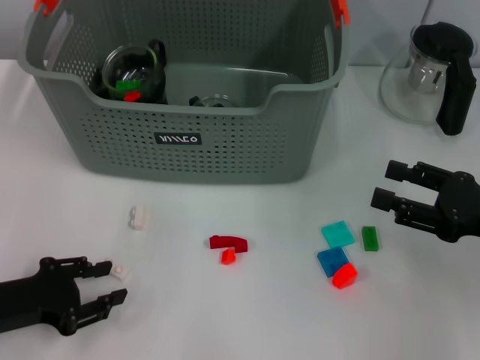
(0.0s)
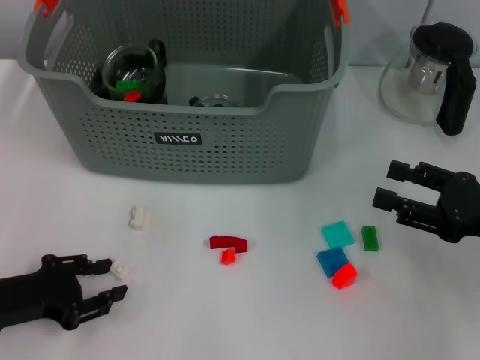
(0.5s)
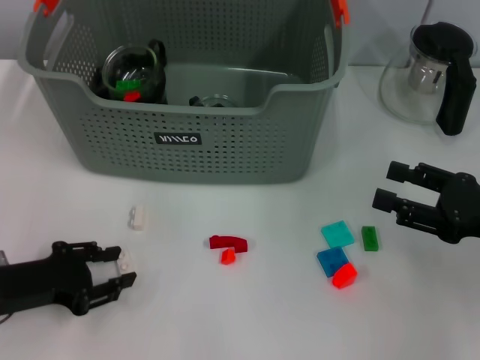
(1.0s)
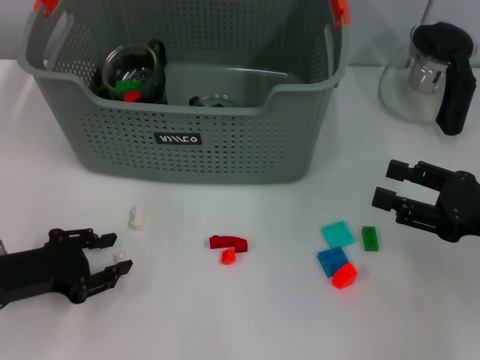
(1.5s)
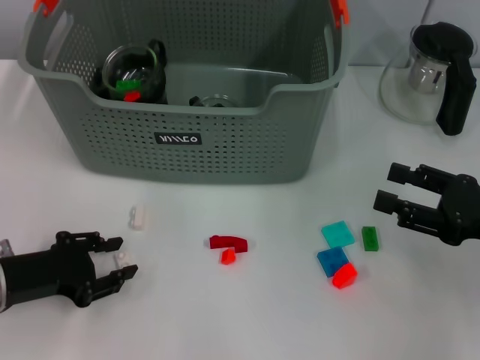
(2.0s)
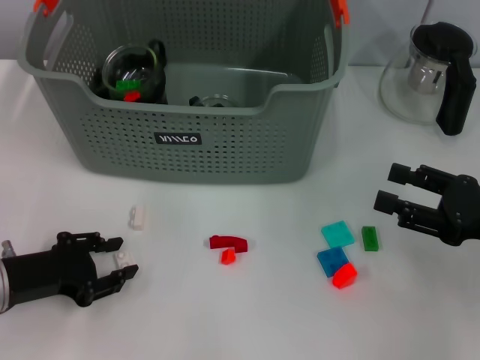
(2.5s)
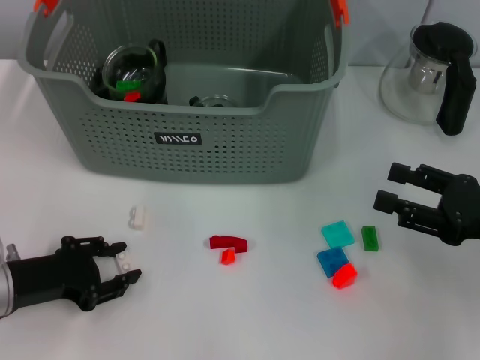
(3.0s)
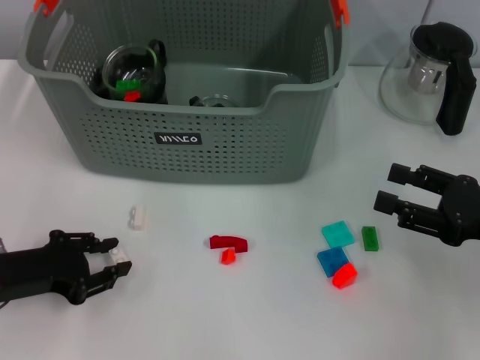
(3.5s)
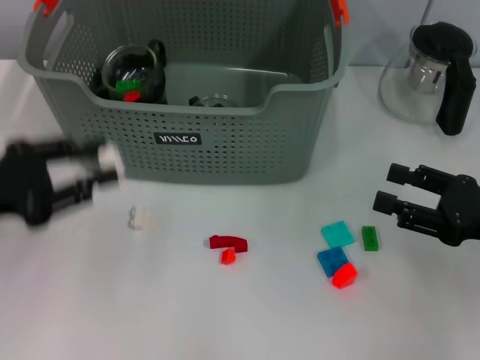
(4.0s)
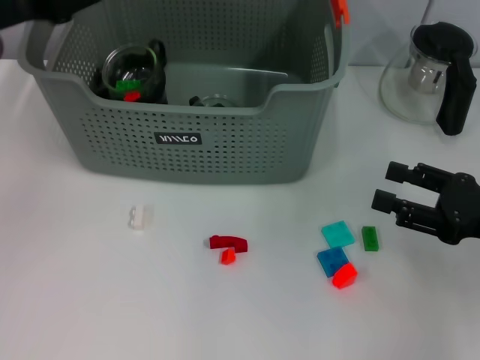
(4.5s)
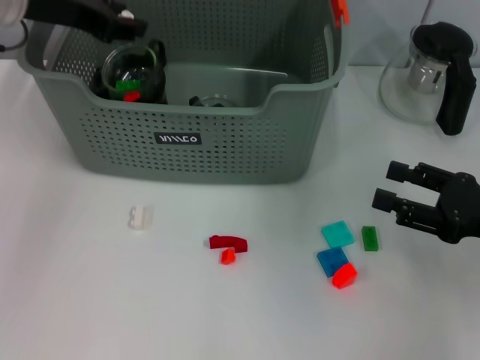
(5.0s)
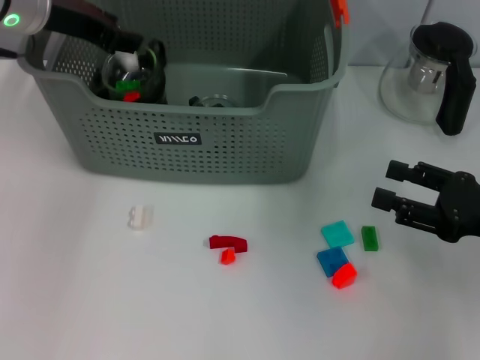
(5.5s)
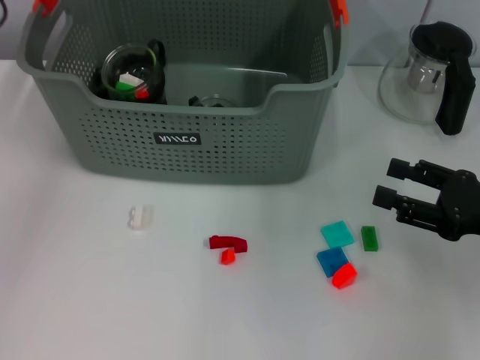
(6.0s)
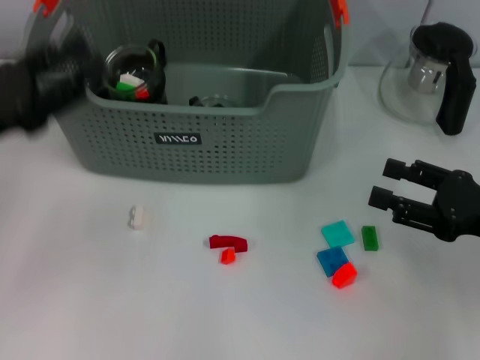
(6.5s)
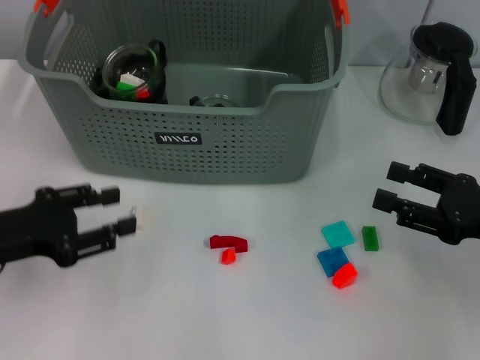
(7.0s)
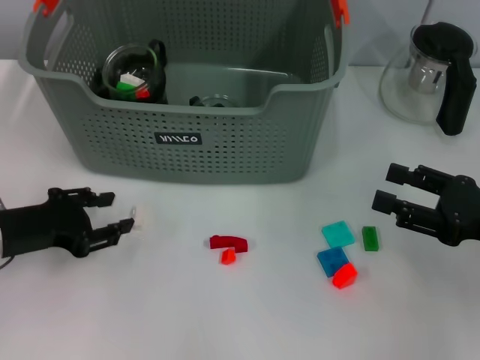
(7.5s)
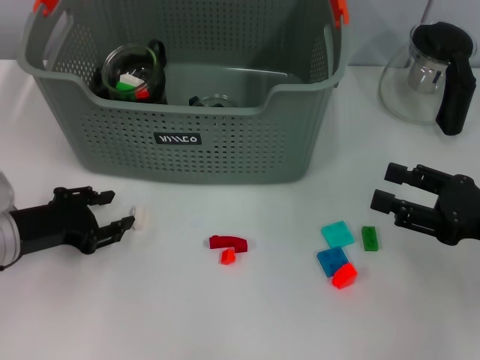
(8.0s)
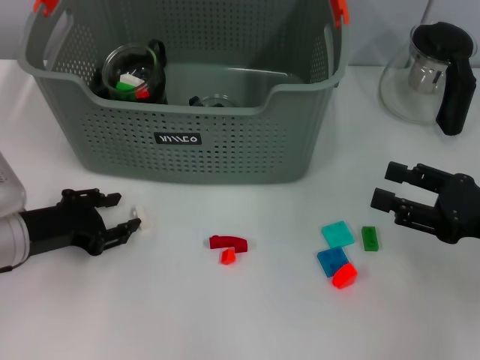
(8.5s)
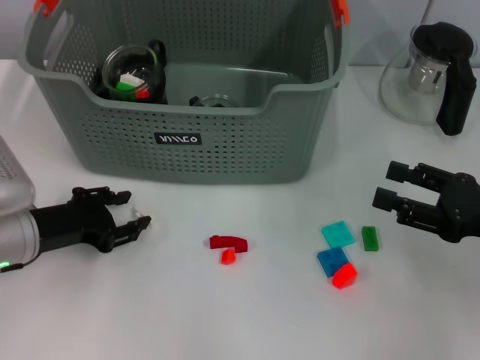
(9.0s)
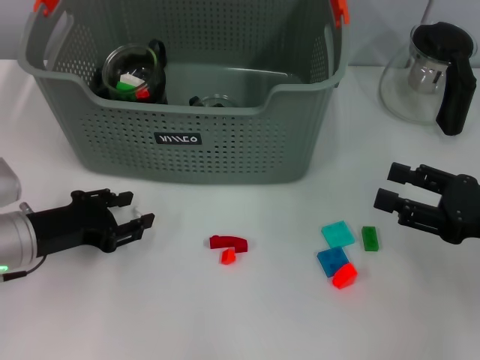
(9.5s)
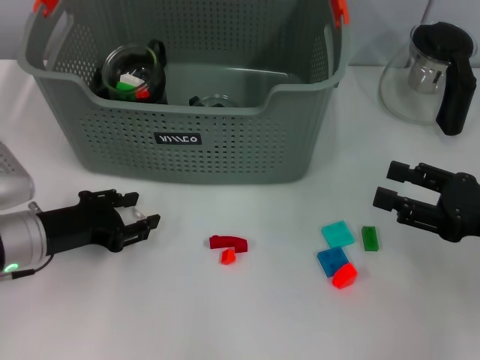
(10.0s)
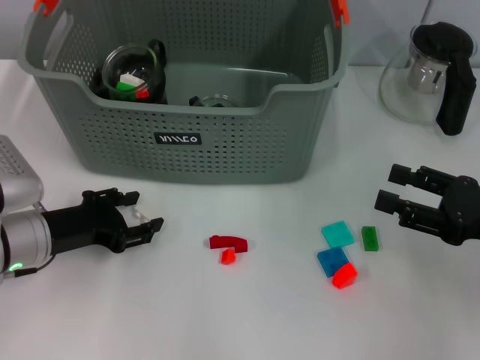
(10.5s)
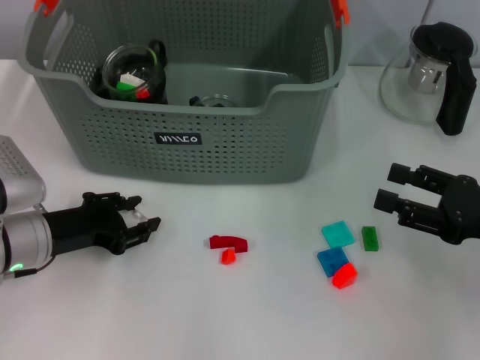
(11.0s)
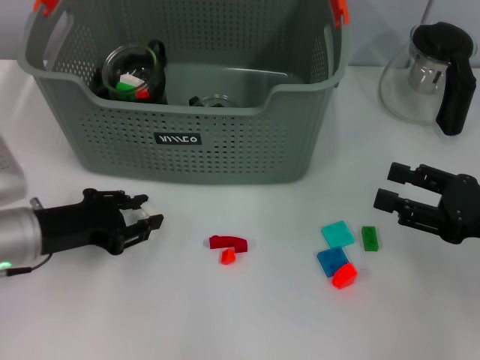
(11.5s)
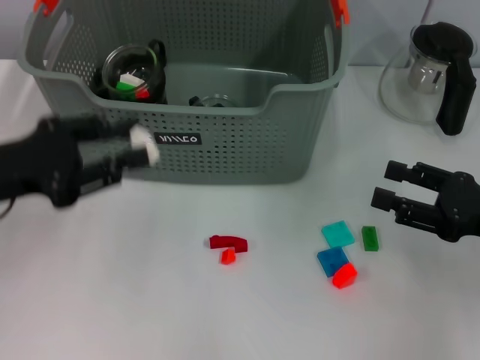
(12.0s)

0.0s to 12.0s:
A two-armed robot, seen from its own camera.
Task of the whole recording: pick up the teacup on the table and place it into the storage bin, pick up the block on the table and place it into the storage bin.
Step, 0.0s to 3.0s: Grasp the white block with left gripper.
Step, 3.5s to 5.5s: Place the white block in the storage box with left gripper.
Step, 6.0s to 11.0s: Grasp the white block with left gripper.
0.0s to 2.0s: There are only small adjustments of the grippers.
2.0s to 4.0s: The left gripper moves upward, some 10 cm.
4.0s to 6.0s: The left gripper shifts roughly 20 cm upward, forward and to the right.
6.0s to 8.0s: The left gripper is displaced downward and backward by about 25 cm.
8.0s to 10.0s: The grippers move only a little.
10.0s to 12.0s: The left gripper moves upward, some 10 cm.

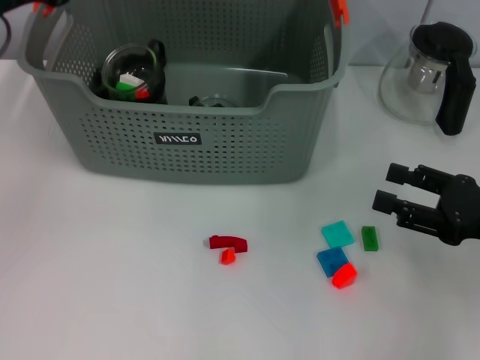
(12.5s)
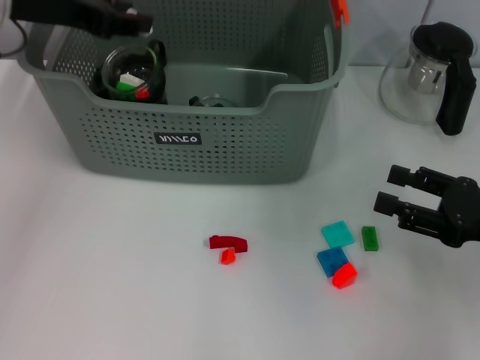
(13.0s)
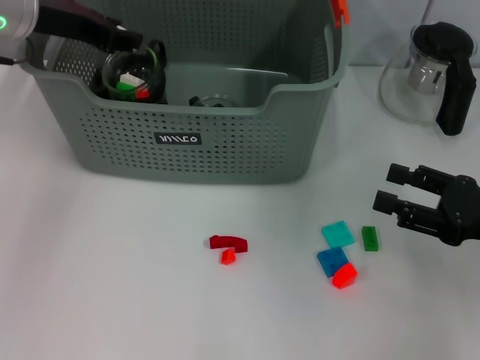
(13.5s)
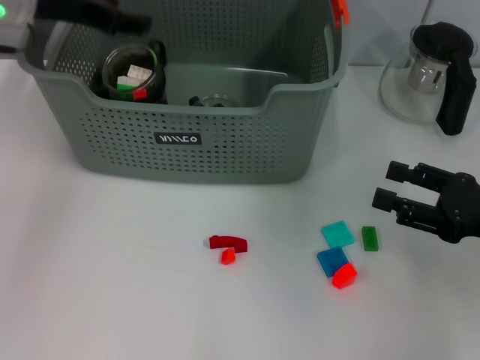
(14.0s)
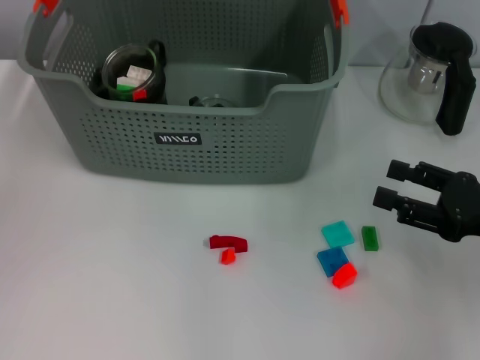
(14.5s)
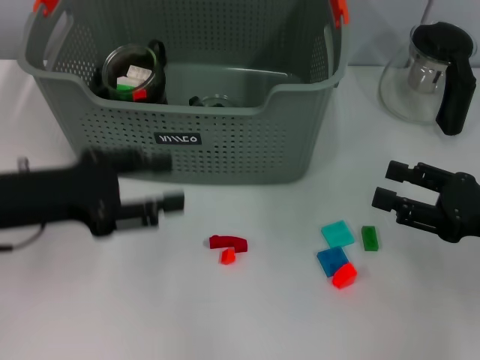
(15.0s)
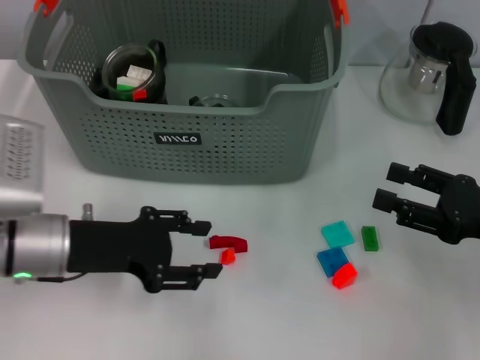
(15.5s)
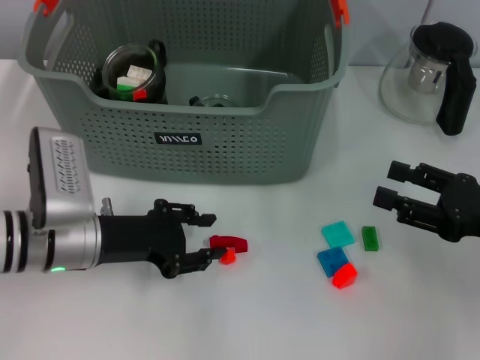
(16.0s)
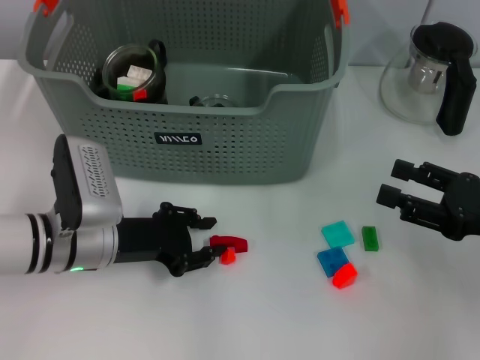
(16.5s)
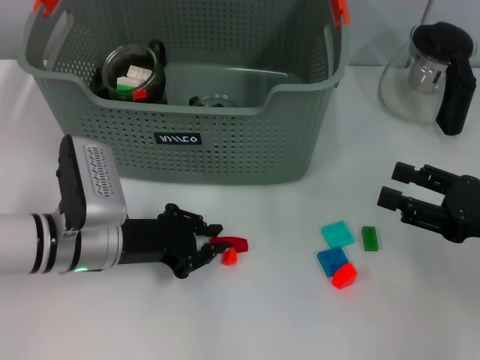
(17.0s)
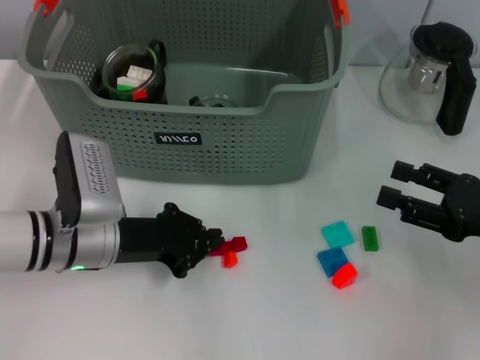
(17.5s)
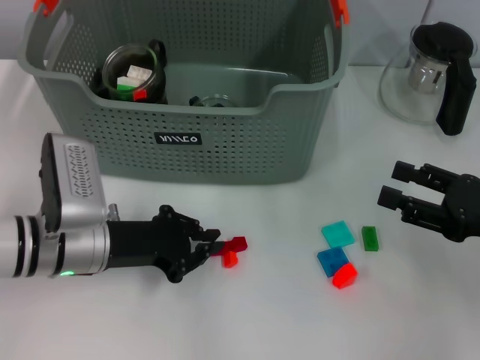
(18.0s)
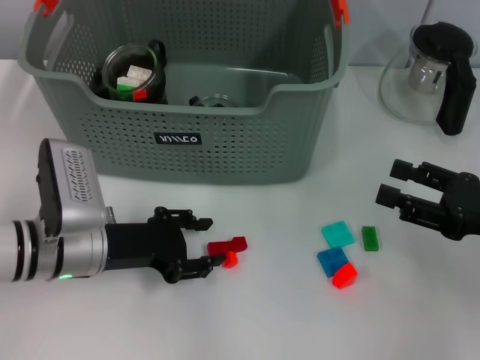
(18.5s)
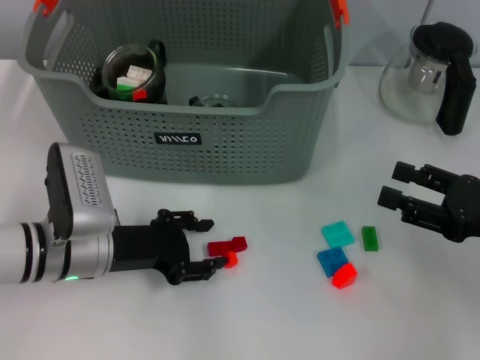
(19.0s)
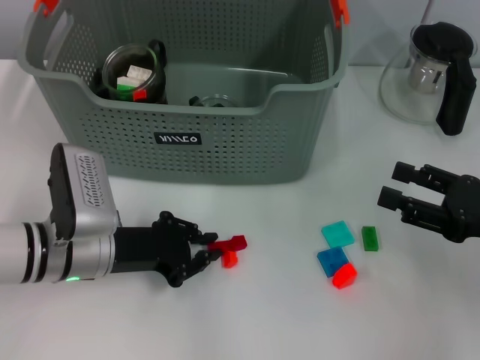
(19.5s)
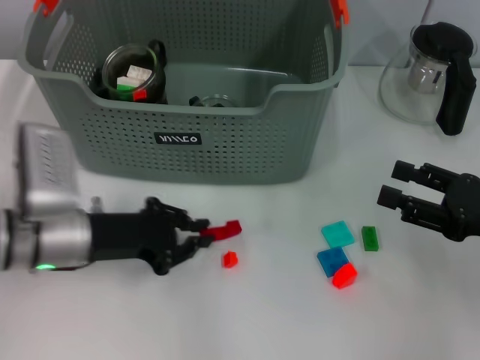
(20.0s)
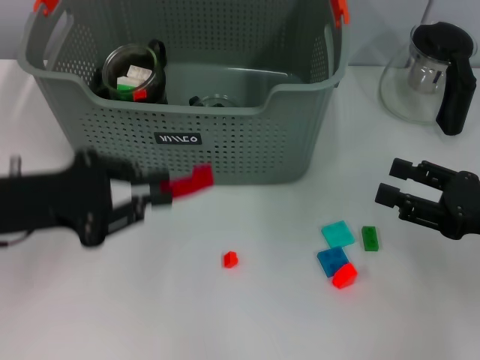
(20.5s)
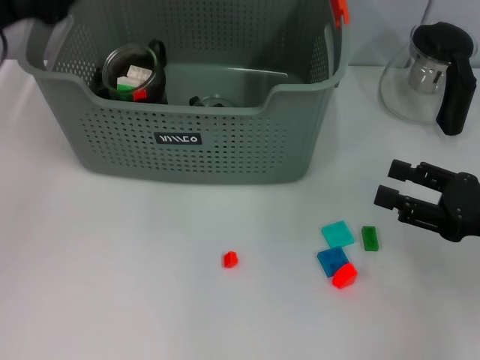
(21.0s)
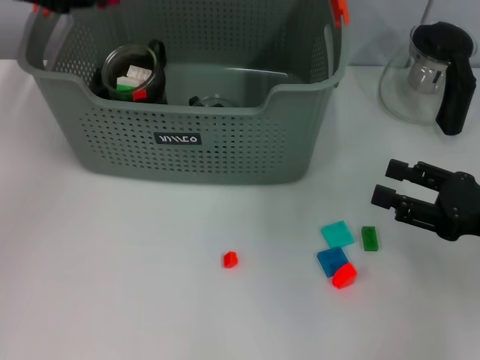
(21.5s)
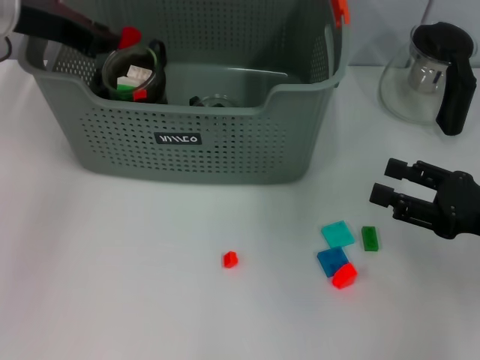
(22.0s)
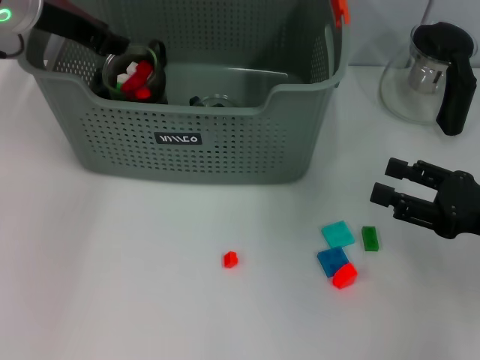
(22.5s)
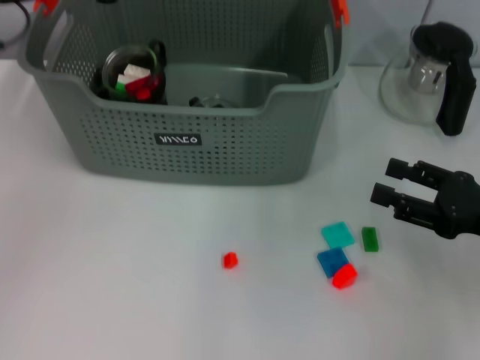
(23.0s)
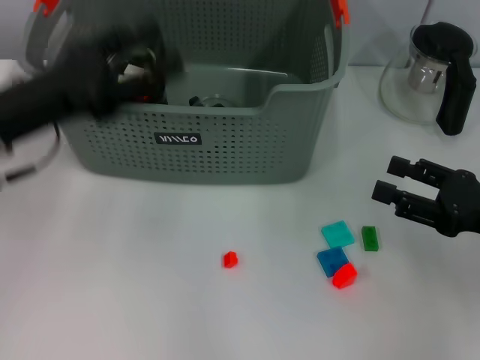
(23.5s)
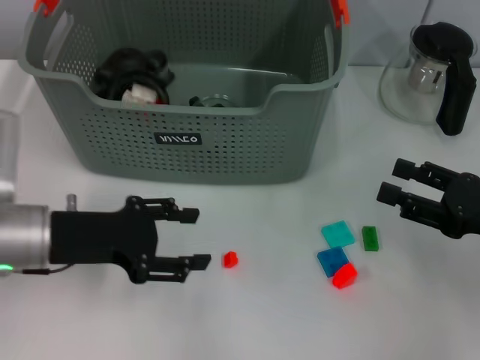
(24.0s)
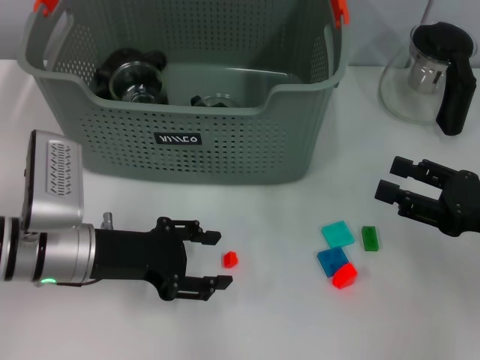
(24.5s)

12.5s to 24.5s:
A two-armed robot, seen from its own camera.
Task of the whole recording: pick up the teacup on the table and place it into the storage bin, pick up the block on the table and place it into the storage bin.
Step, 14.0s to 19.5s: Grasp the red block with left gripper.
Step, 20.0s to 22.5s: Place the red block in the storage box with left gripper.
12.5s to 14.5s: The left gripper goes forward and returns, approximately 5 cm each way.
14.5s to 16.5s: The left gripper heads downward and to the right, covering about 20 cm.
16.5s to 18.5s: The left gripper closes, then opens again.
18.5s to 20.5s: The left gripper heads upward and to the left, covering approximately 10 cm.
20.5s to 22.5s: The left gripper goes roughly 20 cm forward and upward.
22.5s to 24.5s: The left gripper heads downward and backward, covering about 25 cm, and opens up.

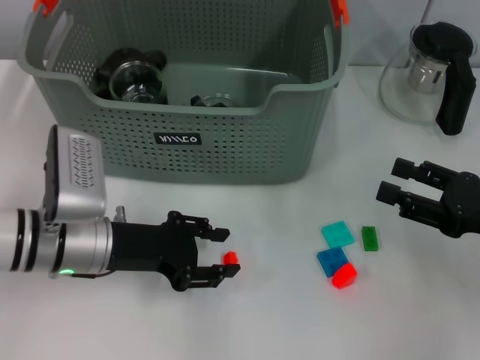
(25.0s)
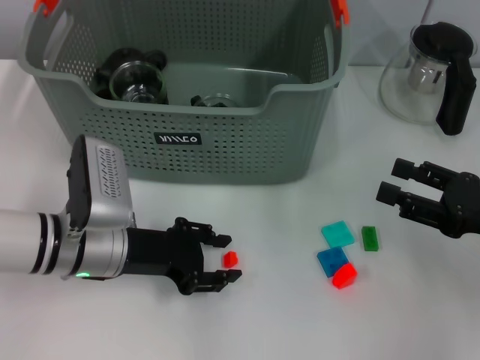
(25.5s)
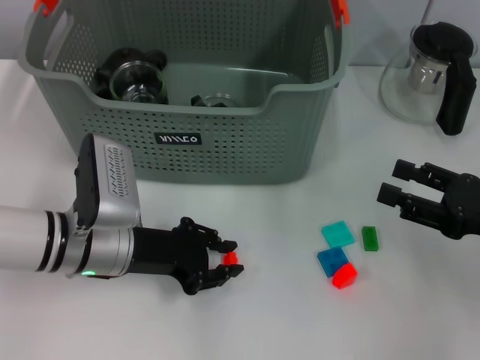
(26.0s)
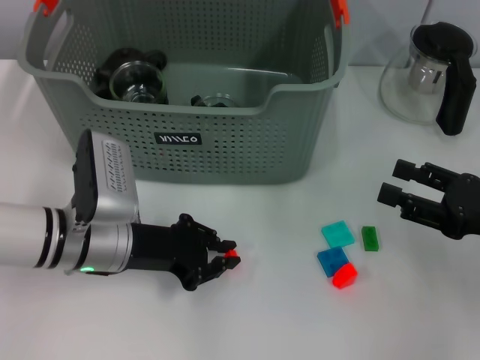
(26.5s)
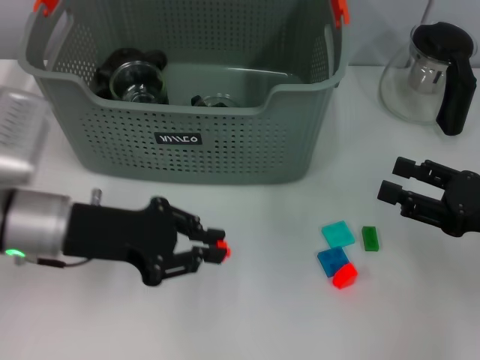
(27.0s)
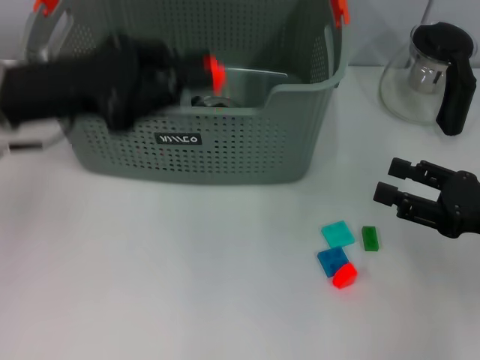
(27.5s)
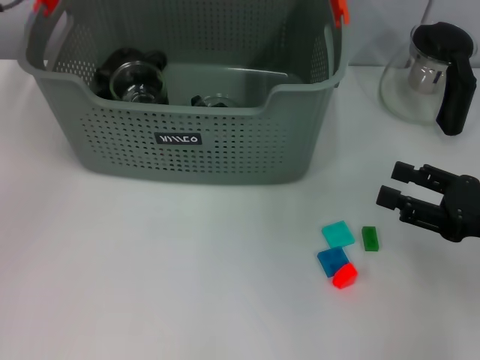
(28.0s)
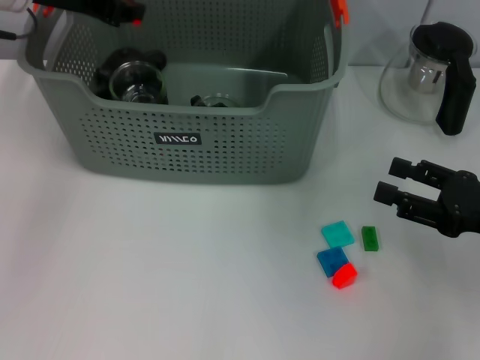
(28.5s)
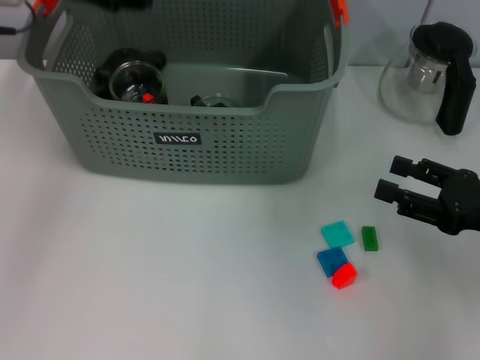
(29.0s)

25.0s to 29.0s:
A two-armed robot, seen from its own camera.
Task of the whole recording: pick up the teacup on the table and place it into the storage bin, pick up the block on the table and place it into the storage bin.
Step, 26.5s to 28.5s: Place the orange block in the storage box with left gripper.
25.0s to 27.0s: The left gripper closes up.
27.0s to 29.0s: The left gripper travels upward and forward by about 20 cm.
